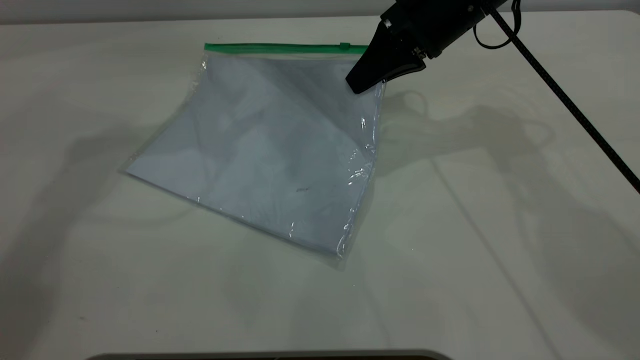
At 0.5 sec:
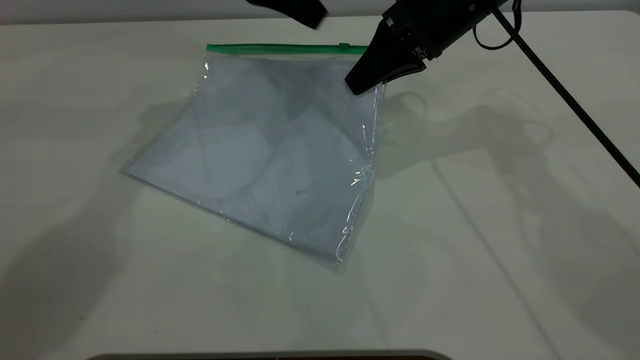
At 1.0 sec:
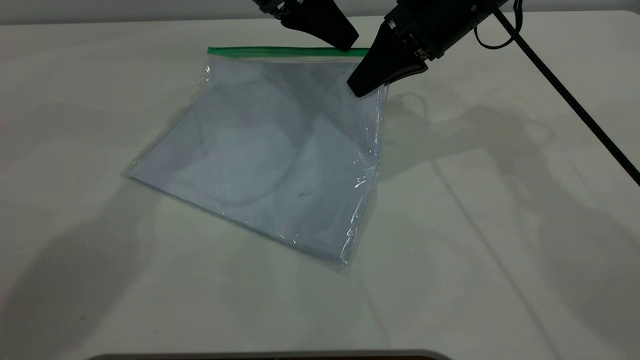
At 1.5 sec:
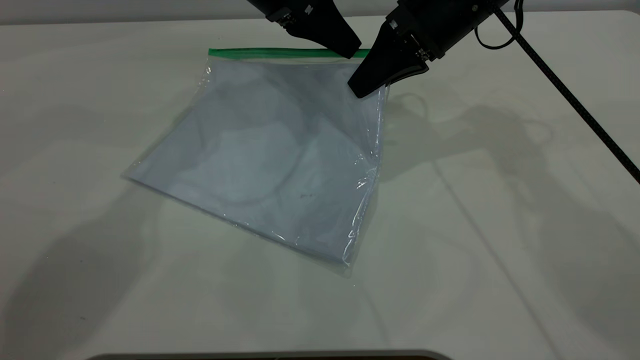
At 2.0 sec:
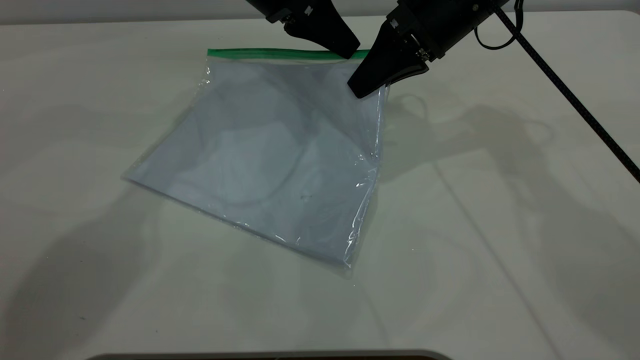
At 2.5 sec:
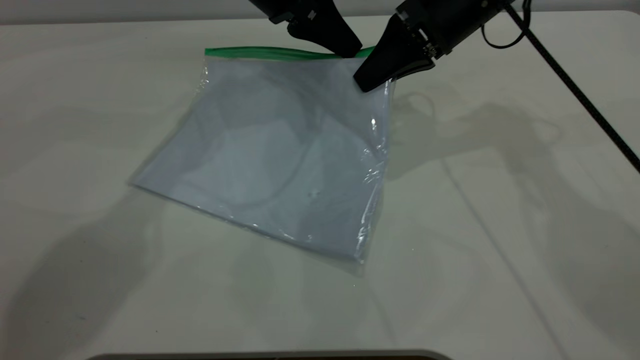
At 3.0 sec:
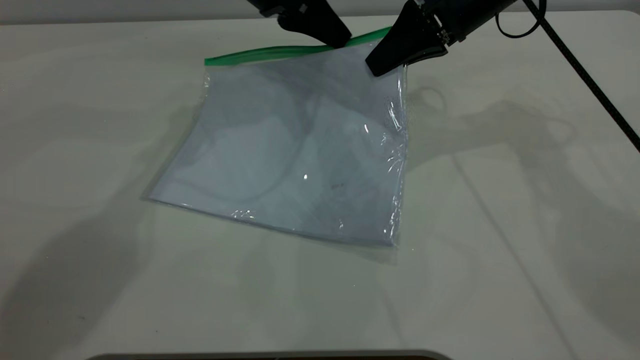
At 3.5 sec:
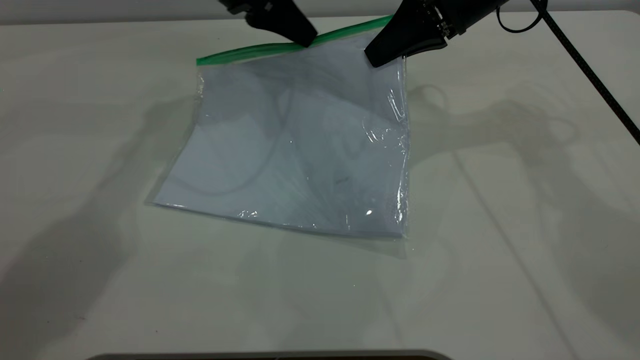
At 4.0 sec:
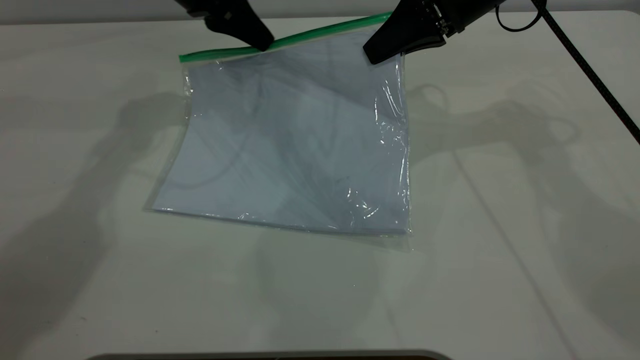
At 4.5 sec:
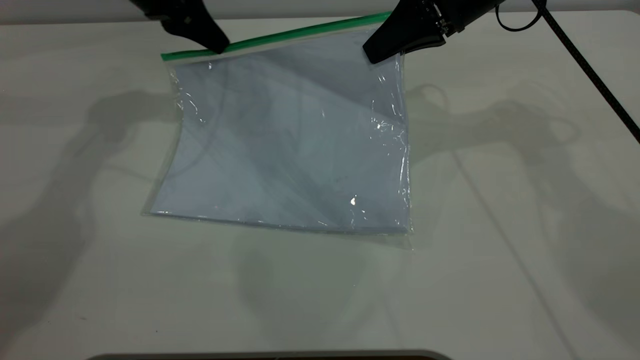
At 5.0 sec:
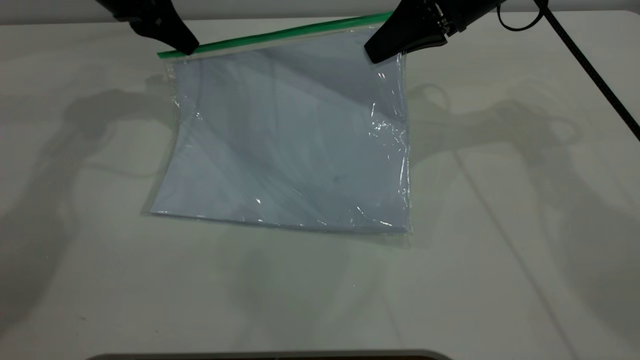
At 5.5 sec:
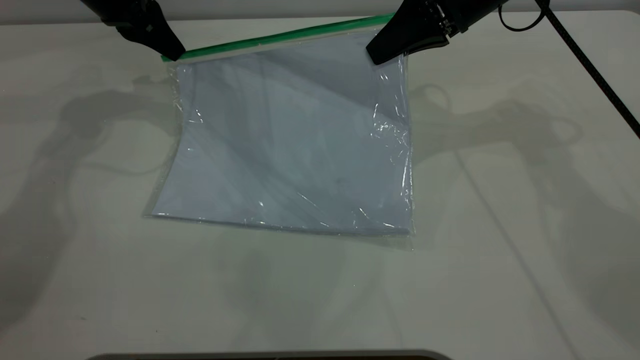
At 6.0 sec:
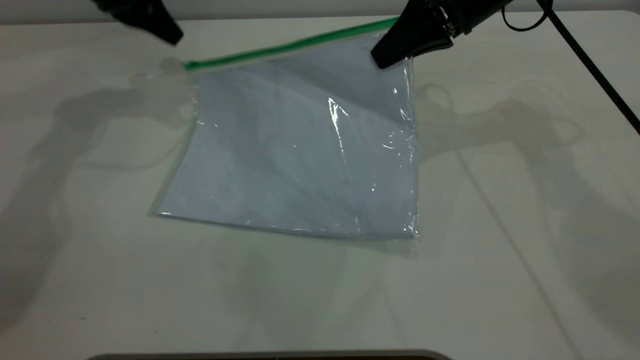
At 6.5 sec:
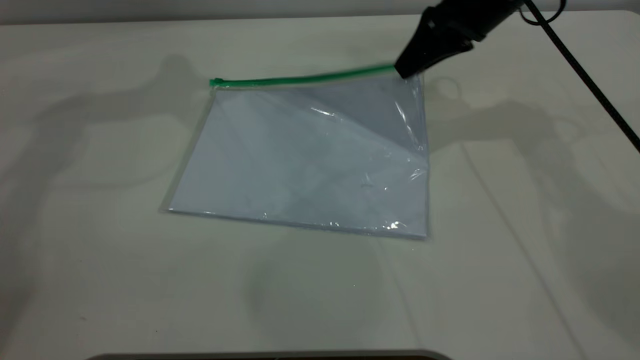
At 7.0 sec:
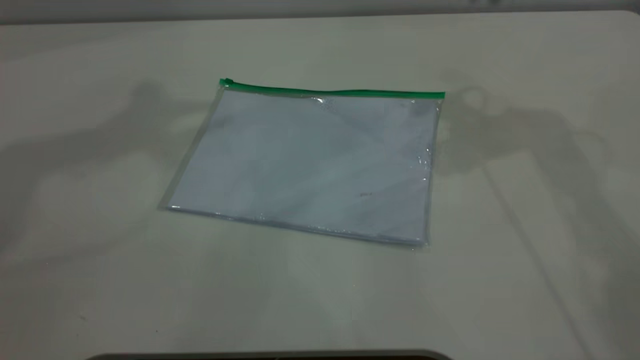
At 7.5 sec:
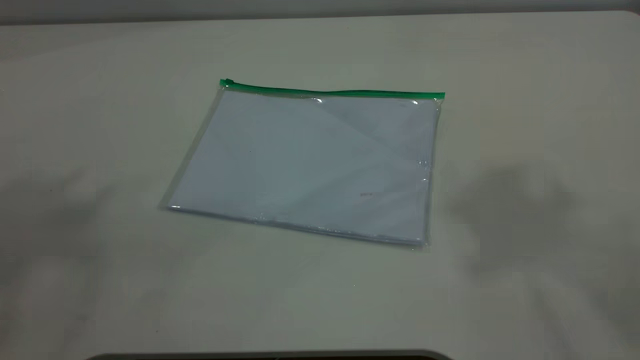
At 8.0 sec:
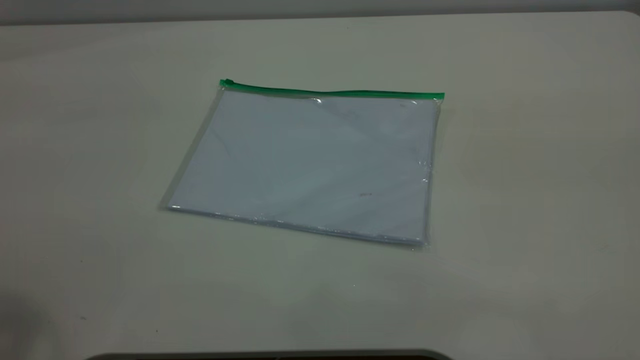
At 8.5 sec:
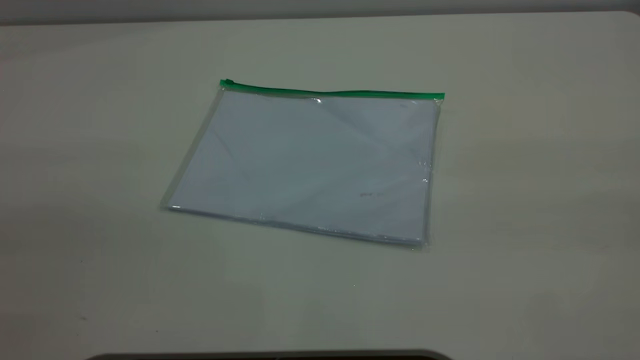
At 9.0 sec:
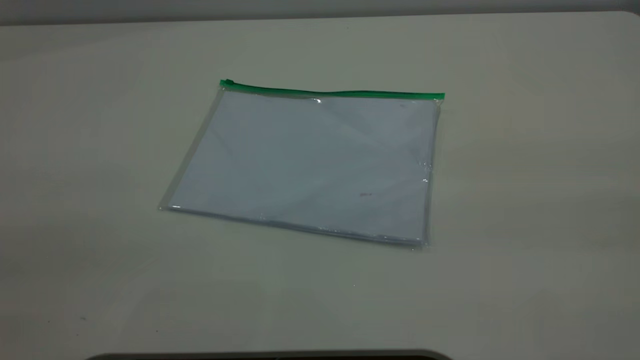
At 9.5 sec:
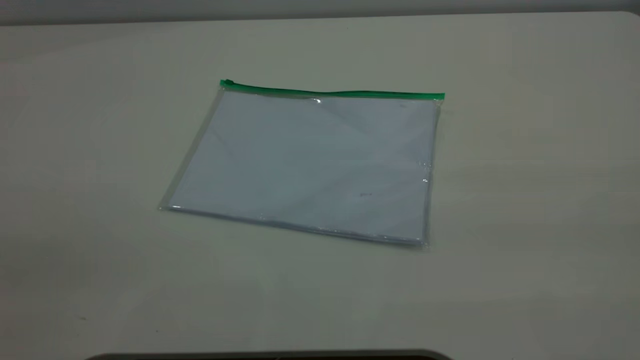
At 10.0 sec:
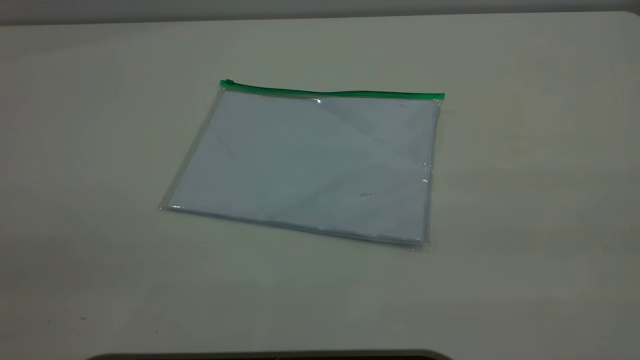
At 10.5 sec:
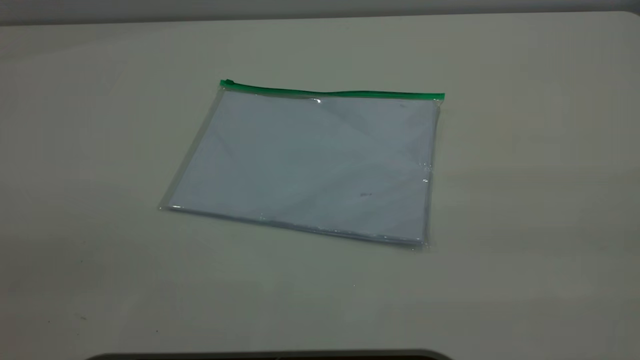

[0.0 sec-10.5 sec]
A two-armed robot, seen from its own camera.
Step, 0.0 sec to 5.5 sec: Pulling up the zipper on the transparent plastic bag with the left gripper to close it.
0.0 sec to 2.0 sec: The left gripper moves to the right and downward, about 15 cm, and closes.
2.0 sec to 4.0 sec: The left gripper travels to the left by approximately 10 cm.
4.0 sec to 6.5 sec: The left gripper moves upward, some 15 cm, and opens up, while the right gripper opens its fingers.
6.5 sec to 8.5 sec: The left gripper travels backward by some 40 cm, while the right gripper travels backward and upward by roughly 50 cm.
